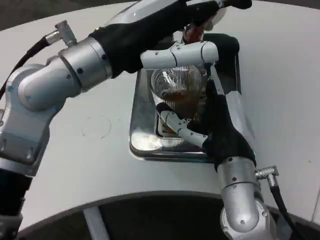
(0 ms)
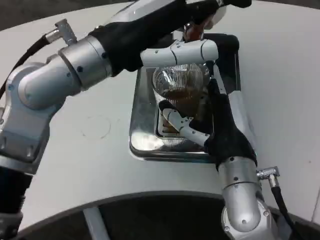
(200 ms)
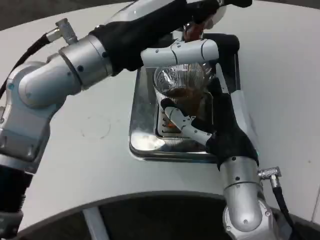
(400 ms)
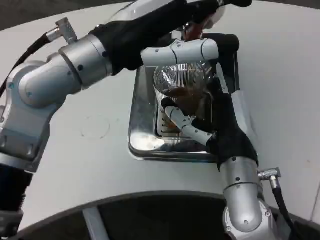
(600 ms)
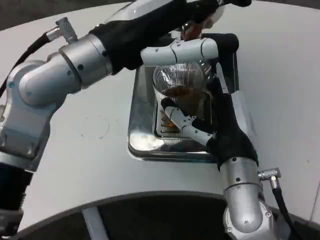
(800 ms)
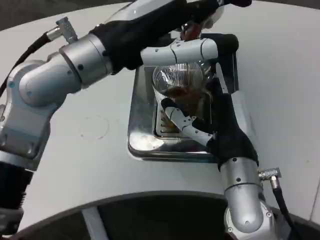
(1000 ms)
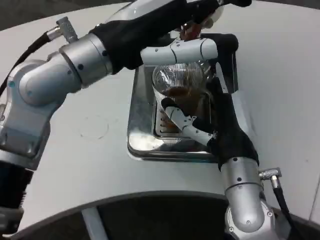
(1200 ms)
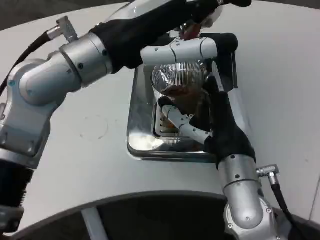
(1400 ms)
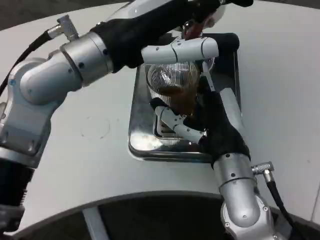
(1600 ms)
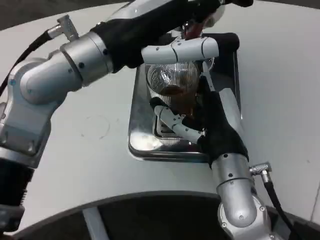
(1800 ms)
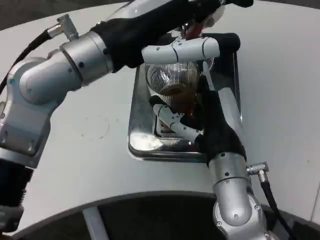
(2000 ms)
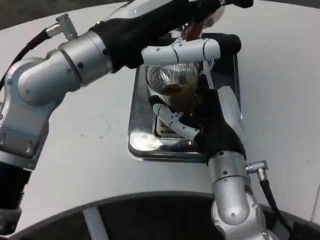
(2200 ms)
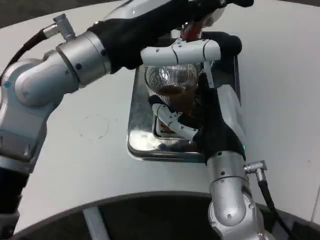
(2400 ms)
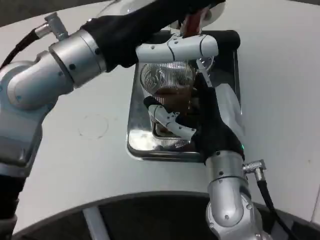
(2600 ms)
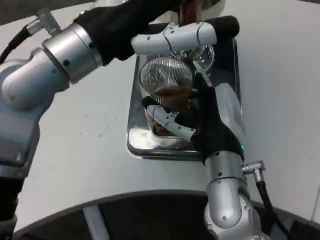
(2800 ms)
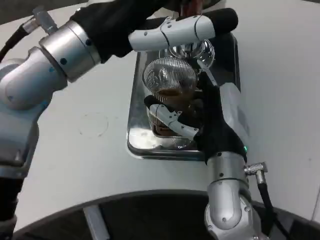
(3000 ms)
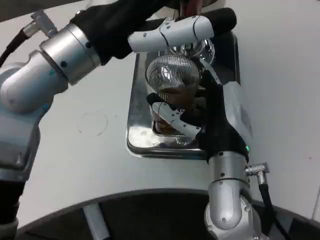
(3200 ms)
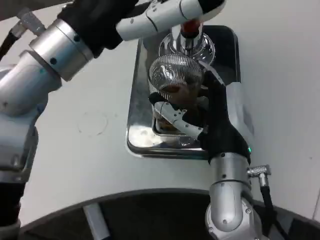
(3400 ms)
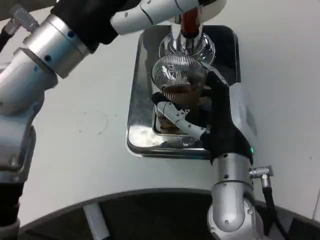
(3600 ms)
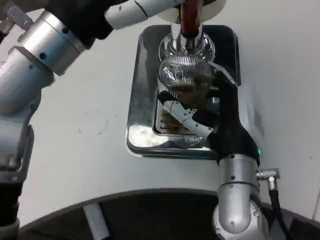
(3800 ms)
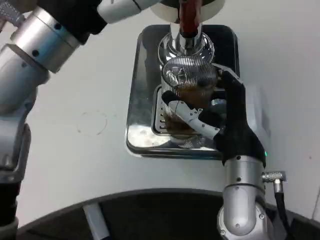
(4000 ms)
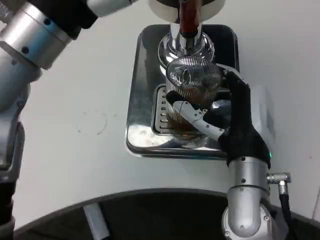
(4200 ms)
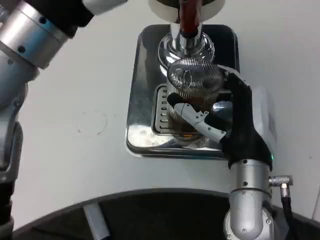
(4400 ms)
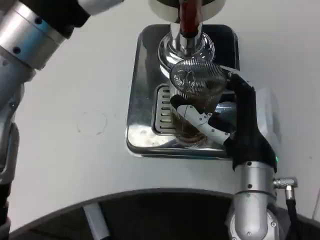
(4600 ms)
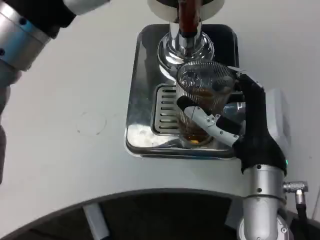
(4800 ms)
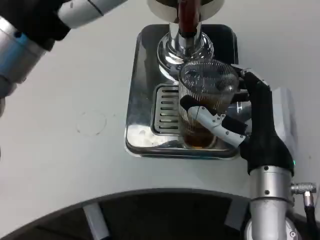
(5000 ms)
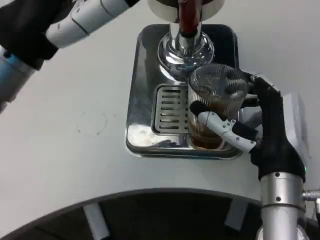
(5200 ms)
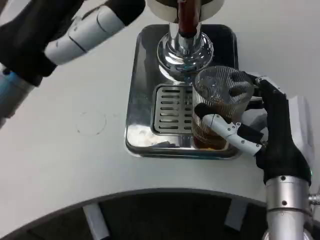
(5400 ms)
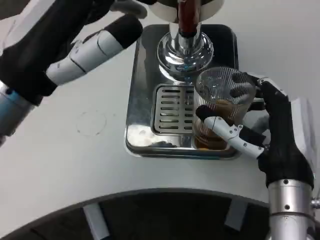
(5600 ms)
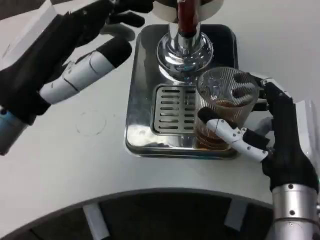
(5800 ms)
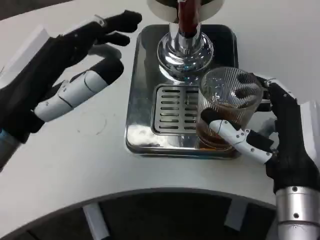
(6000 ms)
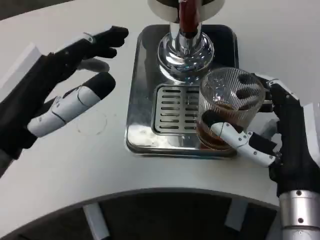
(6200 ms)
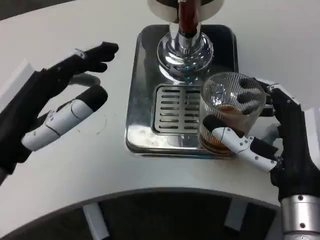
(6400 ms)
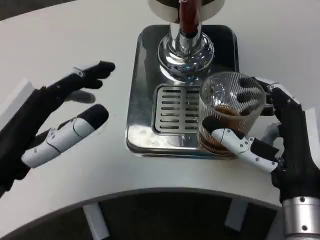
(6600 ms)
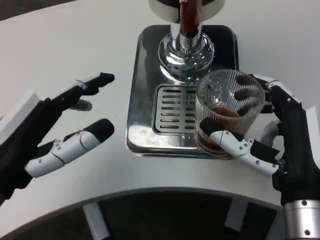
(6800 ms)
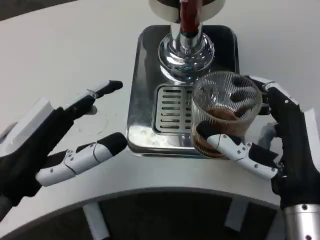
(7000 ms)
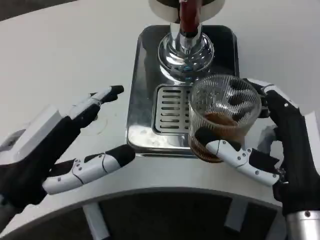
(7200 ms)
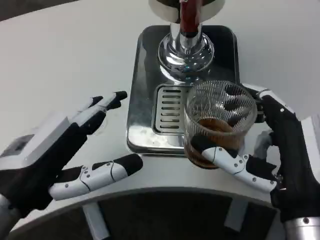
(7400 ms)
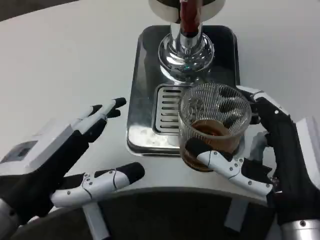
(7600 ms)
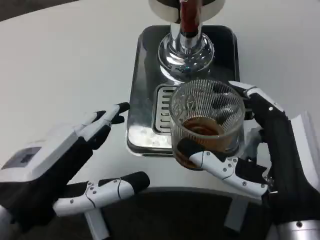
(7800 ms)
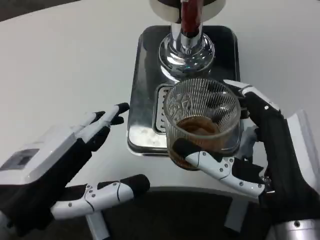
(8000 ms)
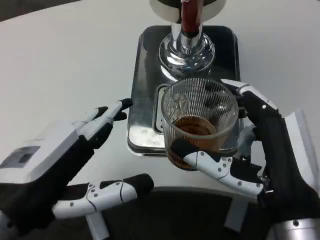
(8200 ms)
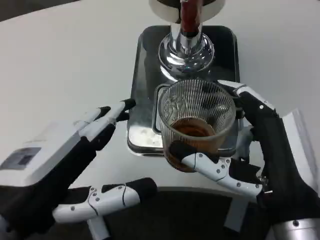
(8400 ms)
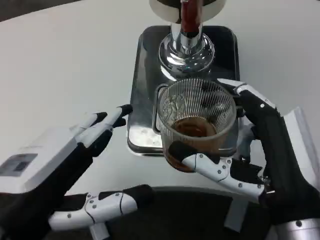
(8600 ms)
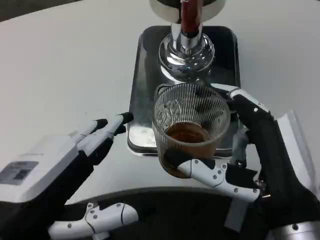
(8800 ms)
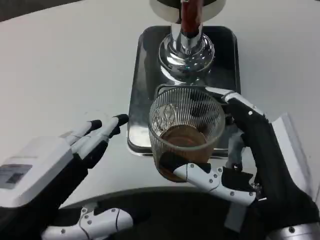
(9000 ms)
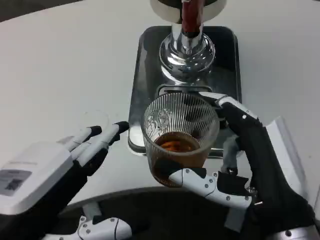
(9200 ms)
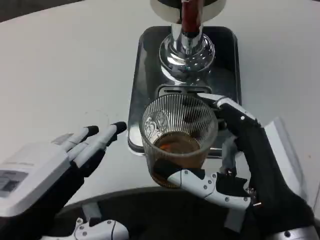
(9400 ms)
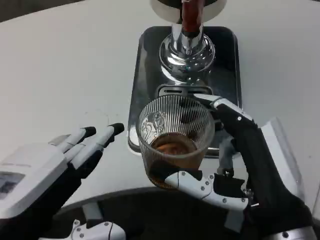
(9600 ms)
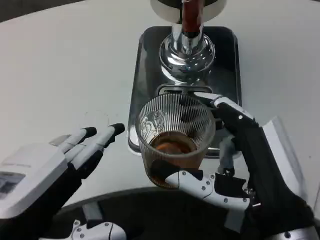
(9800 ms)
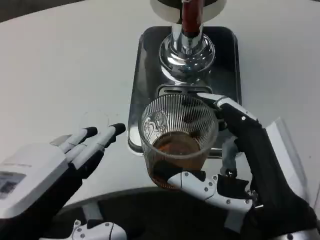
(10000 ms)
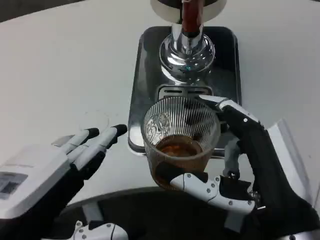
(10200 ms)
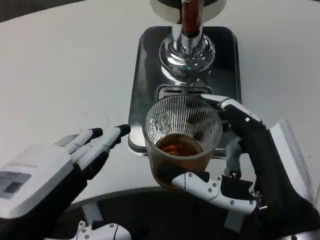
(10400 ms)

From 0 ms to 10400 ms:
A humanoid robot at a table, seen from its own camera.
Task of the whole recording: Grasp the cup under the faucet to collect the drink, then remove the cup.
From 4400 ms to 6000 ms: The right hand moves some 5 cm. Meanwhile the left hand moves downward and to the left, about 10 cm.
From 6000 ms to 7400 ms: The left hand shifts some 5 cm backward.
From 7400 ms to 9000 ms: The left hand shifts about 5 cm backward.
From 9000 ms to 10400 ms: Neither hand changes place.

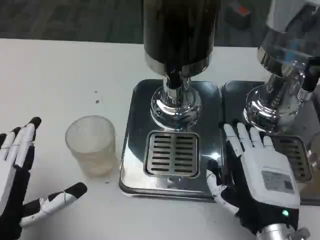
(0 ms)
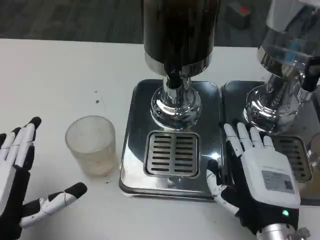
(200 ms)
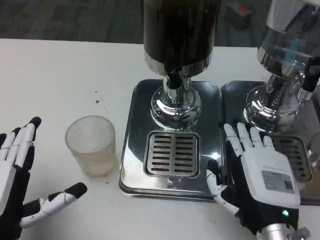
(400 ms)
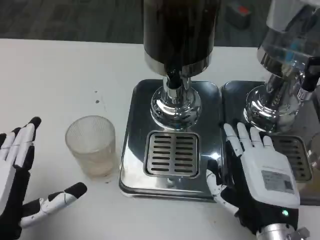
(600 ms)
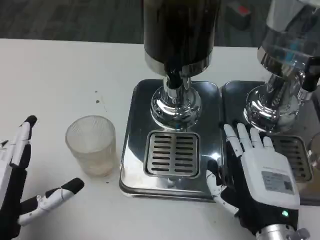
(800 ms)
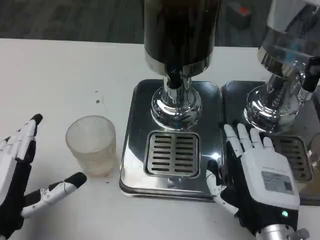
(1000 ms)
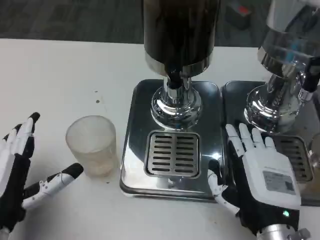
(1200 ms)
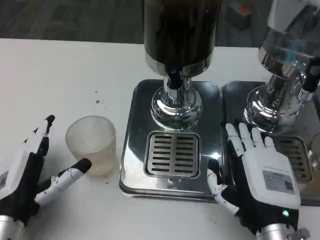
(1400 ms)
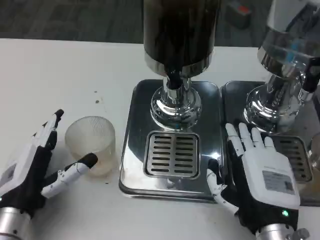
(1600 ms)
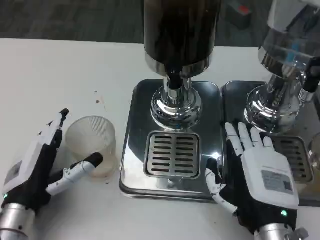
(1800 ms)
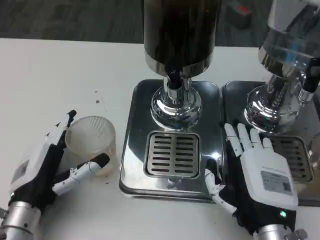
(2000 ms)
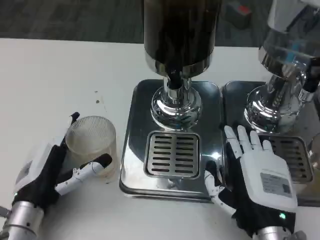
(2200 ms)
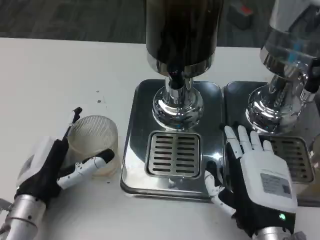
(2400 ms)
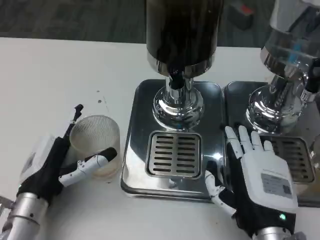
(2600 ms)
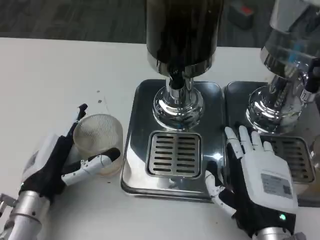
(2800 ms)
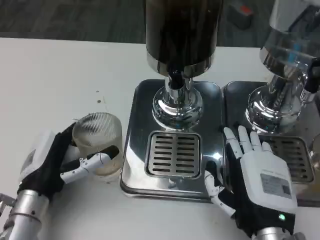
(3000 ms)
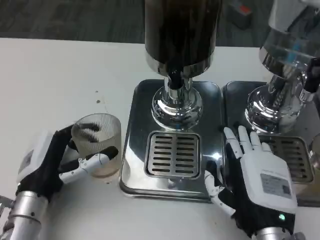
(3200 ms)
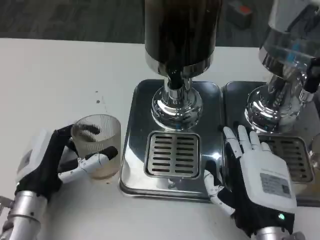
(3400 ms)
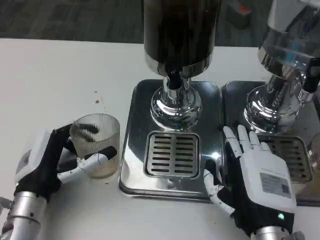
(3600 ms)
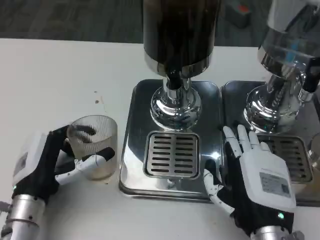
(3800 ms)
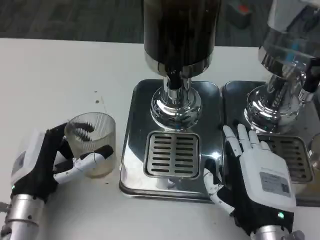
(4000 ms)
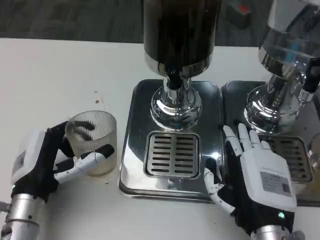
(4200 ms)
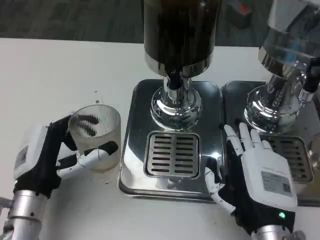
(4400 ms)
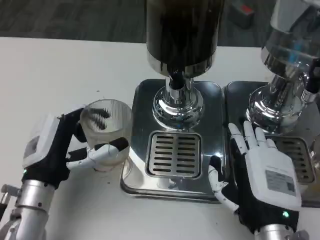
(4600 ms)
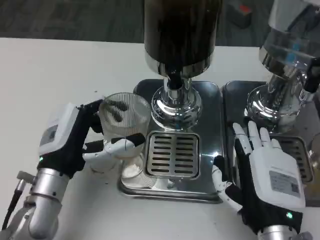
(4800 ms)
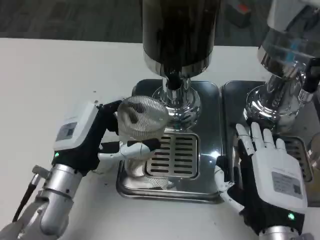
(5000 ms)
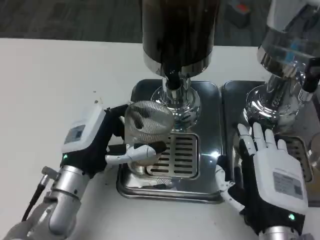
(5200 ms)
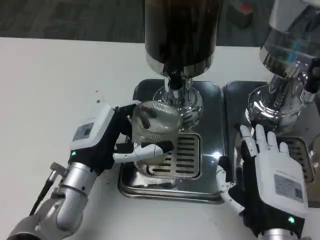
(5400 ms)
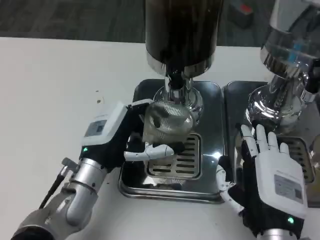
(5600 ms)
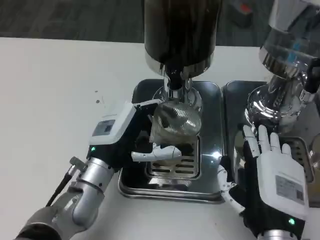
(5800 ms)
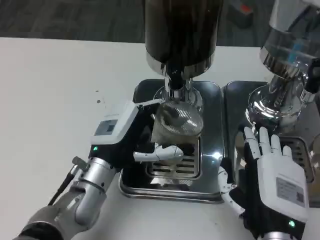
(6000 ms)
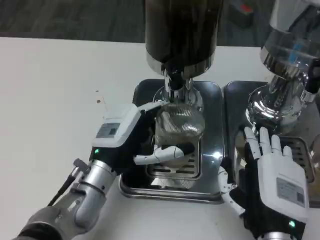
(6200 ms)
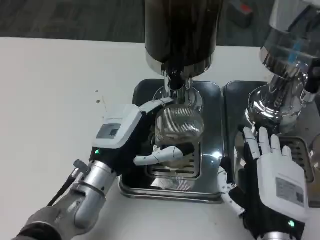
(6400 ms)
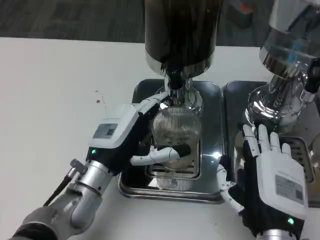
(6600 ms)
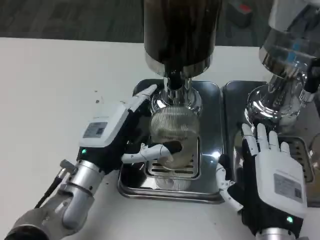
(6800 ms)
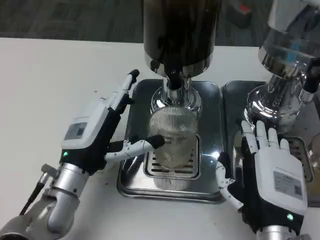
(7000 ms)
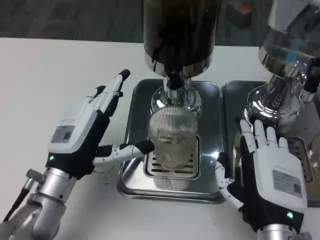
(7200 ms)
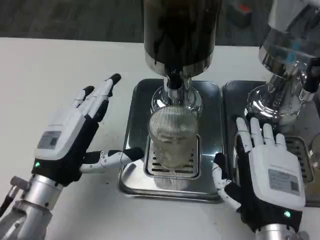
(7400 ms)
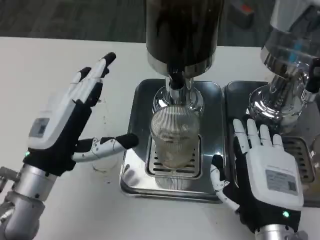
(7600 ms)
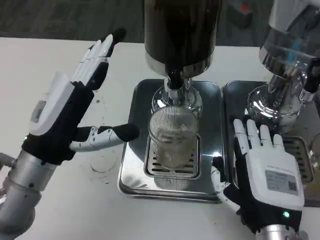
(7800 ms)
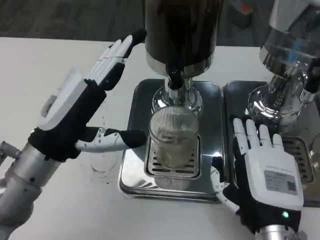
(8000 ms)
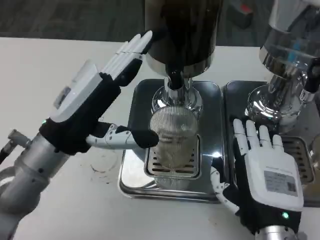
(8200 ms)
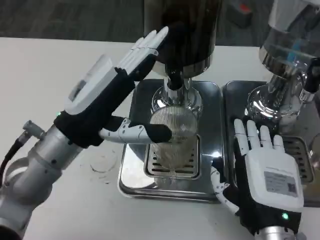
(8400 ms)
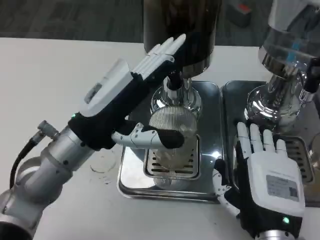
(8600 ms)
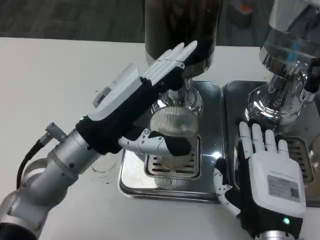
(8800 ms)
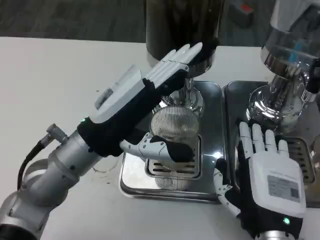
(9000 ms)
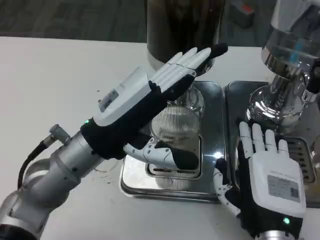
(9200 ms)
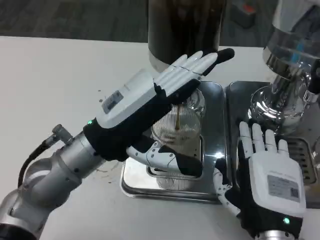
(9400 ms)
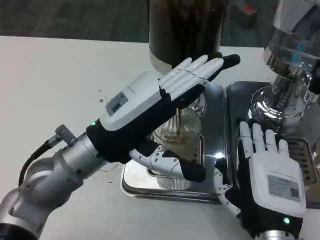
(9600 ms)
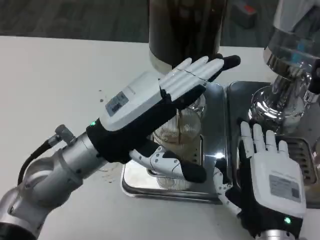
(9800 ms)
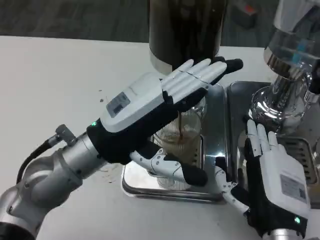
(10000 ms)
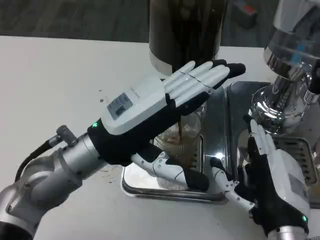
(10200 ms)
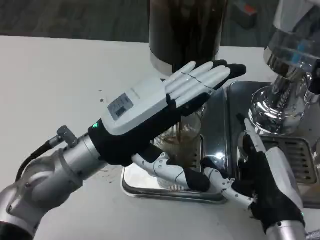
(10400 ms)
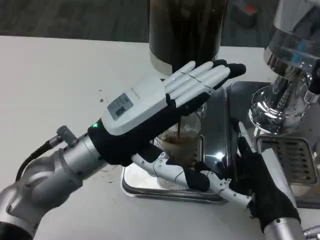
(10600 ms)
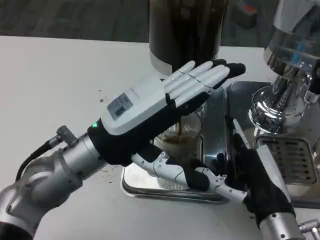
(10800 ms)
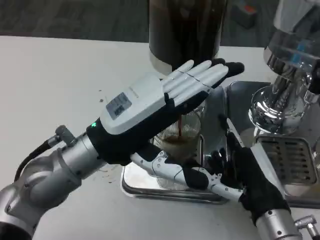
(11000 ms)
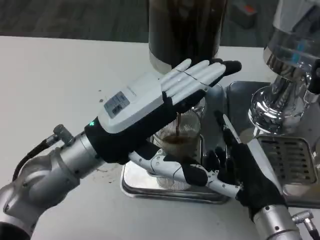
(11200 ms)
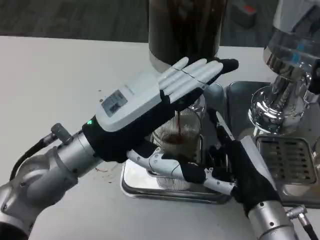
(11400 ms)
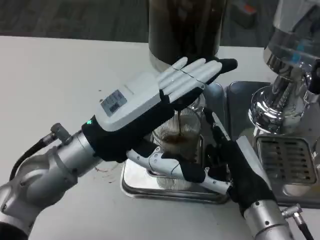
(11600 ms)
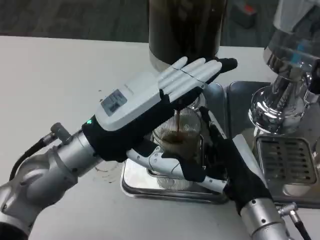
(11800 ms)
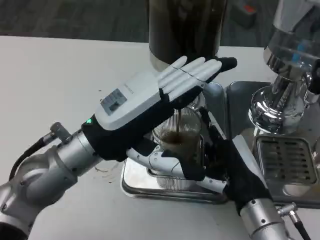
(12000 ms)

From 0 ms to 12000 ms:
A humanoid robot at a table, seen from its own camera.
Task of the whole recording: Grasp the cup under the faucet to collect the drink, then remove the cup.
From 0 ms to 1600 ms: The left hand moves forward, approximately 5 cm.
From 3000 ms to 4400 ms: The hands make only small movements.
From 4400 ms to 6000 ms: The left hand travels to the right and forward by about 10 cm.
From 6000 ms to 7600 ms: The left hand heads to the left, covering about 5 cm.
From 7600 ms to 9000 ms: The left hand moves some 5 cm.
